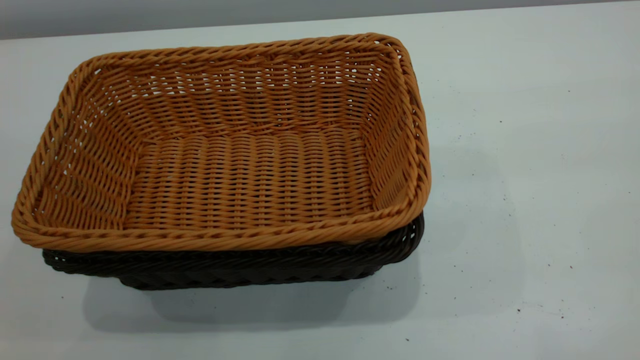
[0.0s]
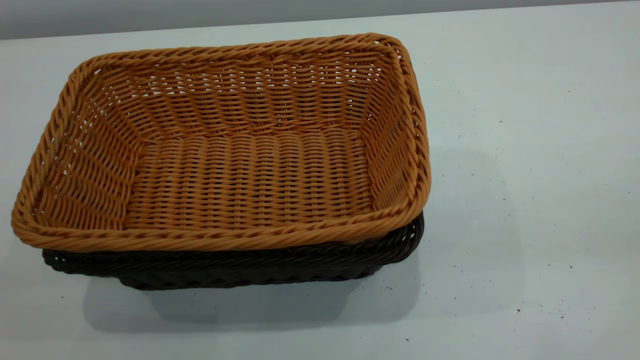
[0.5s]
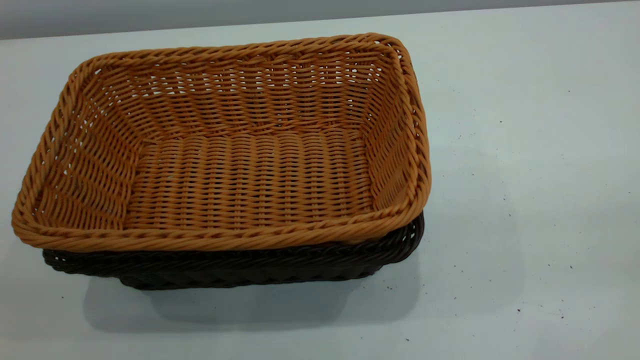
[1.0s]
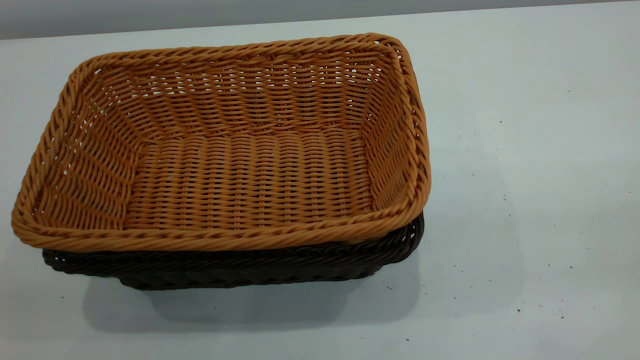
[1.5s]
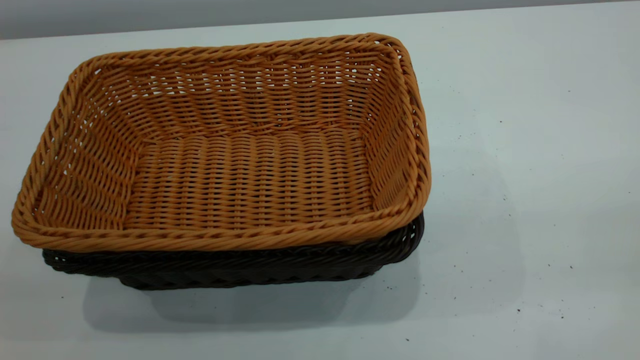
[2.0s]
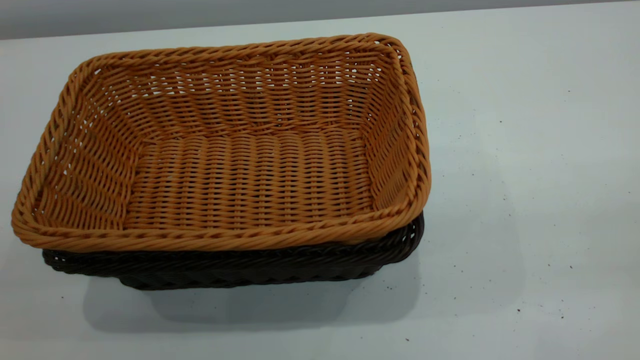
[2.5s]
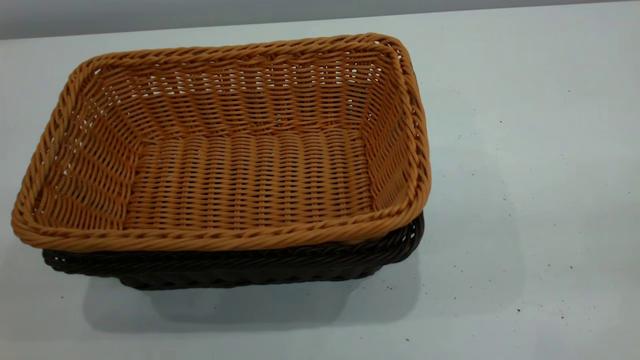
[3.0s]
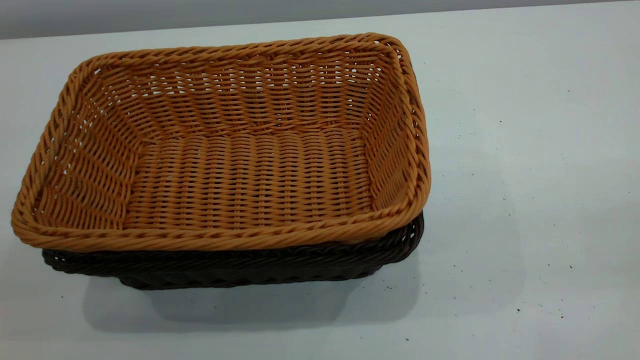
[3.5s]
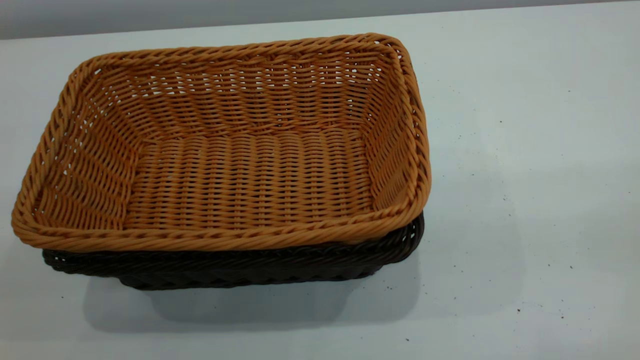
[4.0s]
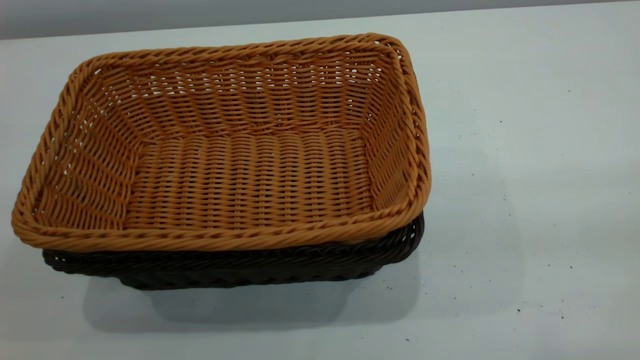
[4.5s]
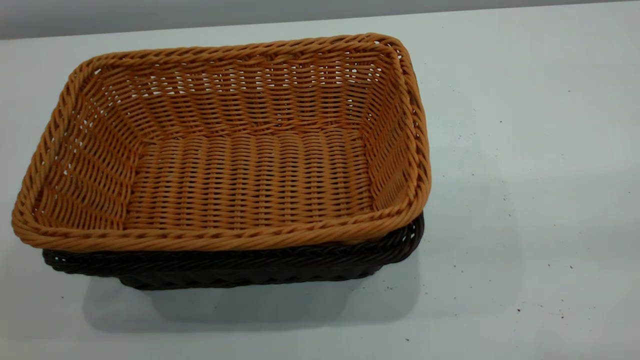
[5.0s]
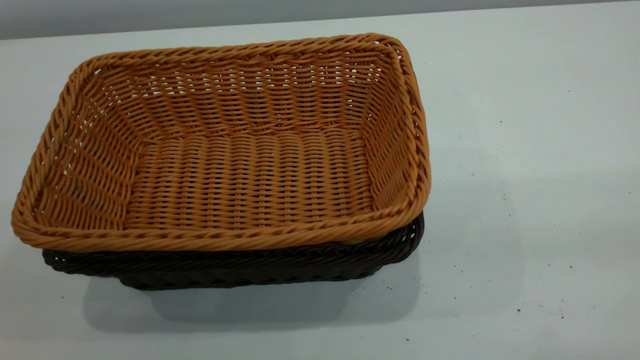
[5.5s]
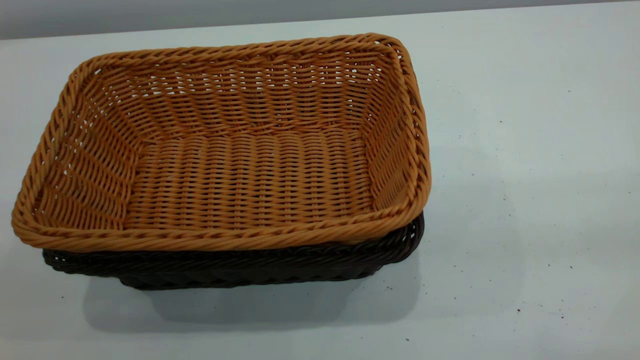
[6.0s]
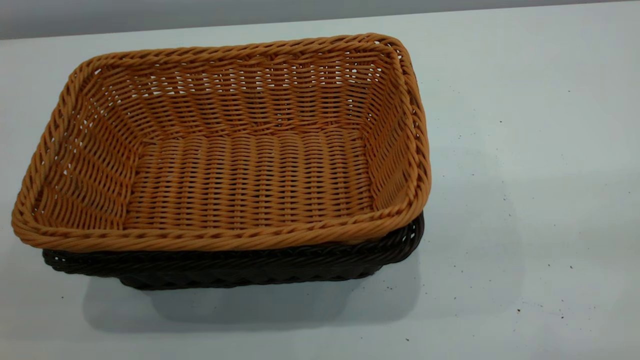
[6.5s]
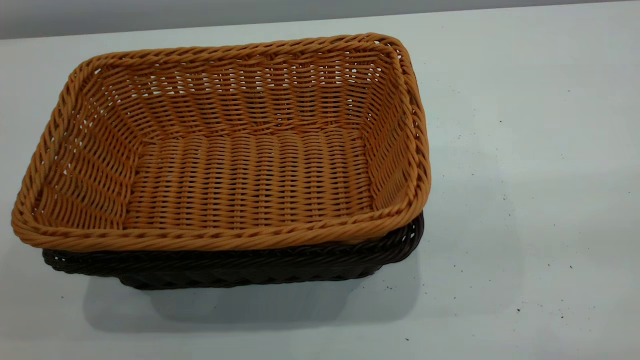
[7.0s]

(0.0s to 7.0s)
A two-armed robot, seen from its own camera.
Task of the whole recording: the left gripper grasp the black basket and place it in the center of the table, the right gripper grasp the brown basket and place it inside the black one.
5.0s - 7.0s: The two grippers keep their place.
